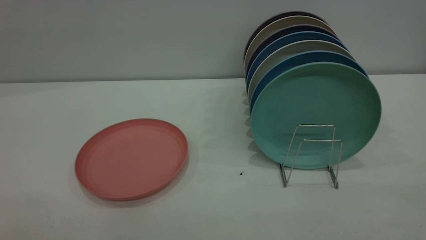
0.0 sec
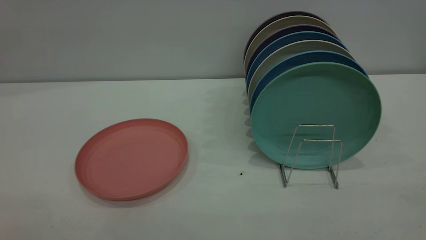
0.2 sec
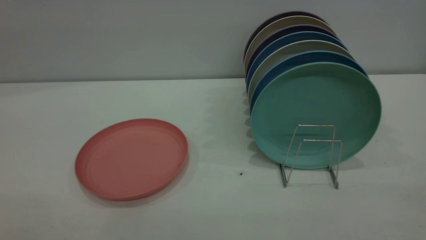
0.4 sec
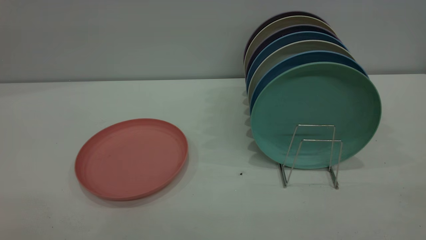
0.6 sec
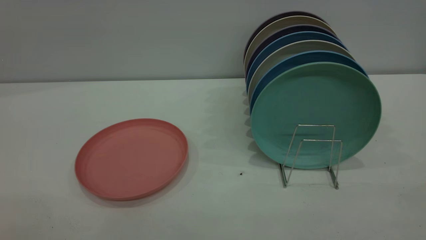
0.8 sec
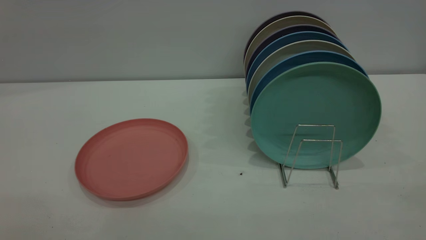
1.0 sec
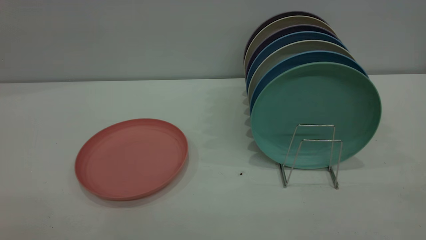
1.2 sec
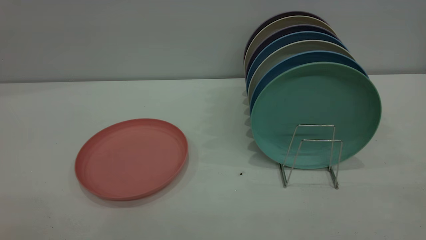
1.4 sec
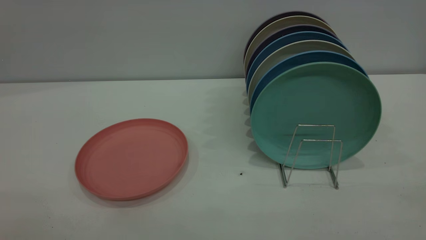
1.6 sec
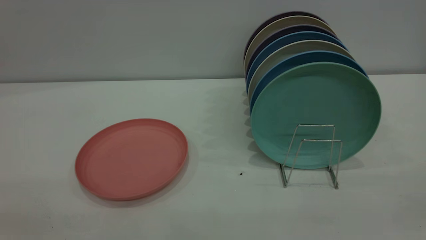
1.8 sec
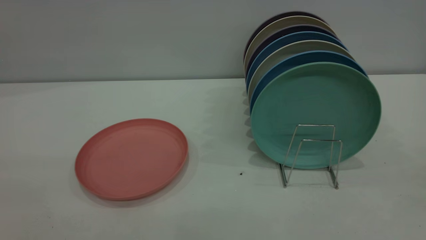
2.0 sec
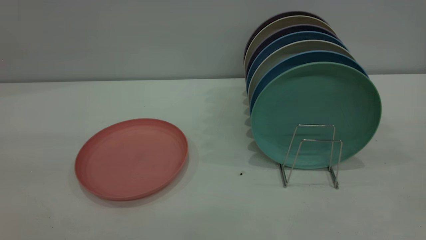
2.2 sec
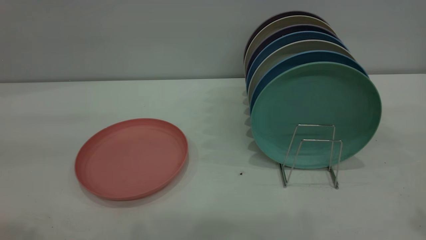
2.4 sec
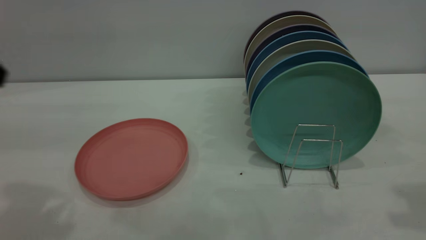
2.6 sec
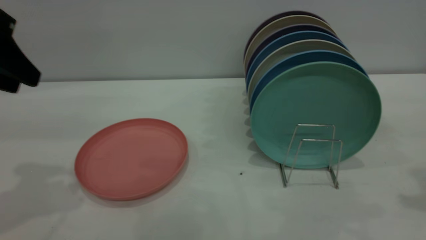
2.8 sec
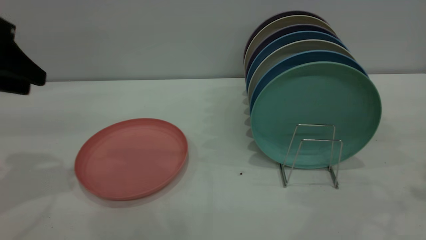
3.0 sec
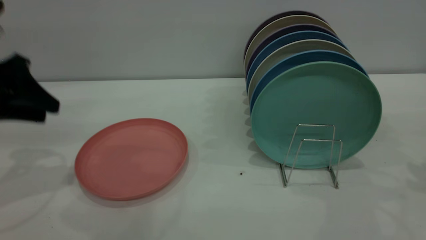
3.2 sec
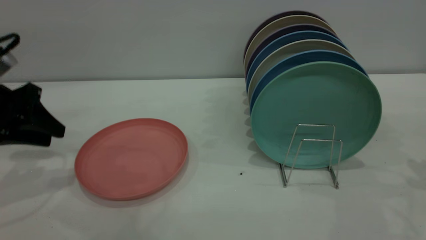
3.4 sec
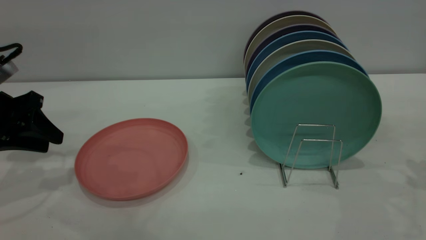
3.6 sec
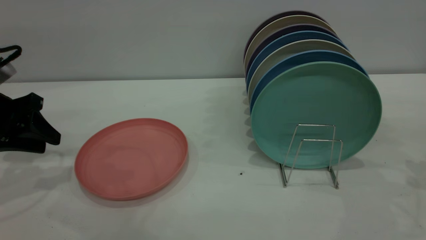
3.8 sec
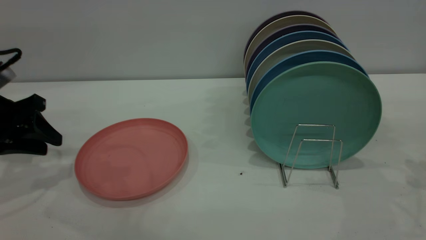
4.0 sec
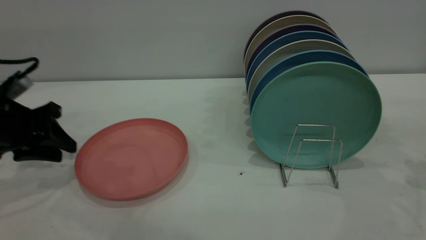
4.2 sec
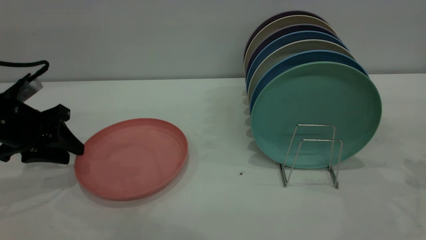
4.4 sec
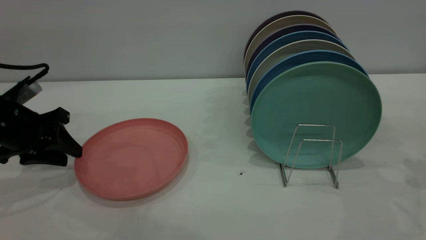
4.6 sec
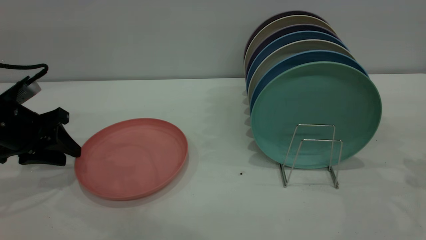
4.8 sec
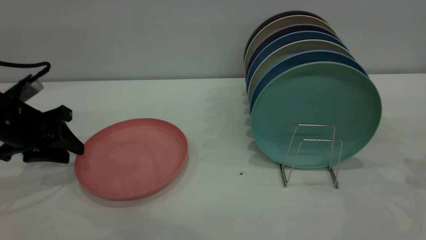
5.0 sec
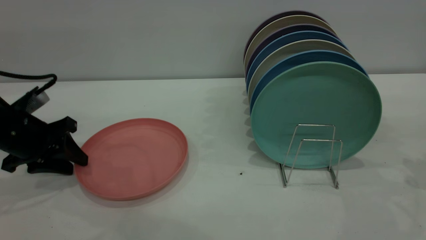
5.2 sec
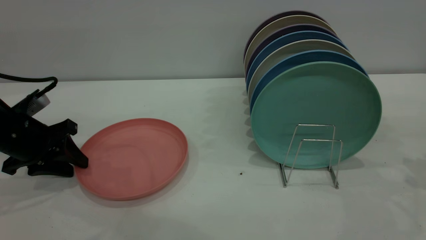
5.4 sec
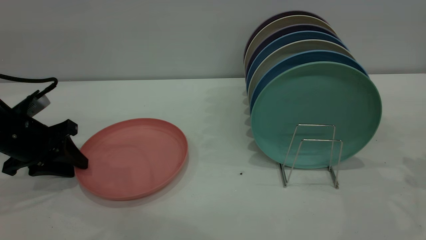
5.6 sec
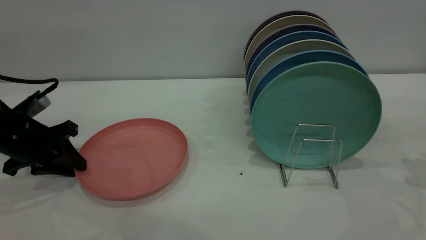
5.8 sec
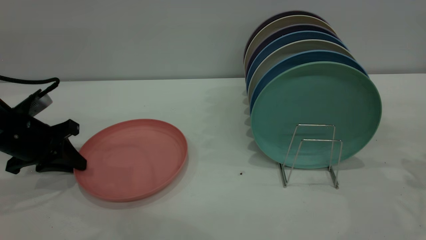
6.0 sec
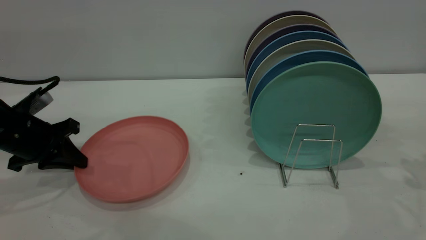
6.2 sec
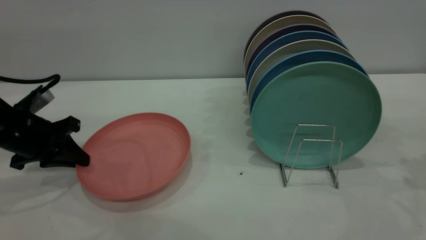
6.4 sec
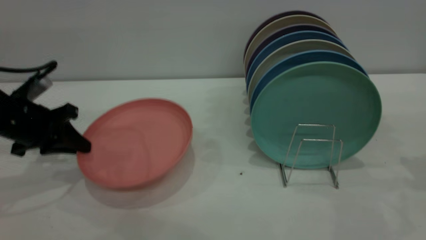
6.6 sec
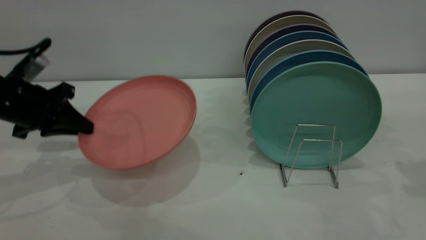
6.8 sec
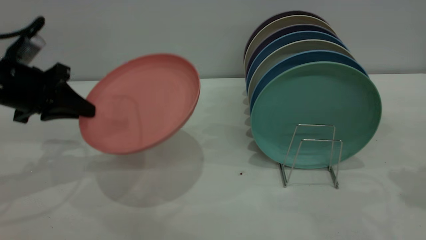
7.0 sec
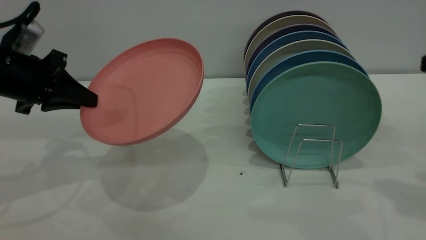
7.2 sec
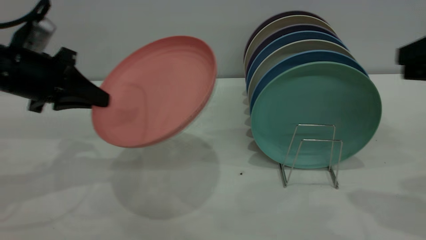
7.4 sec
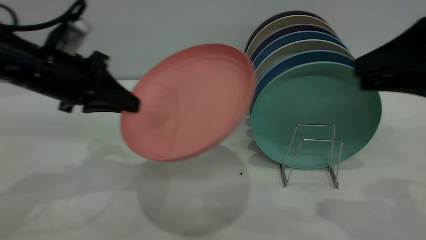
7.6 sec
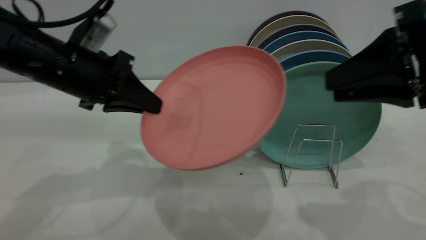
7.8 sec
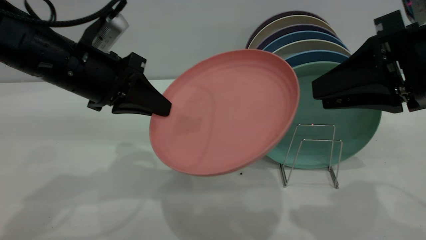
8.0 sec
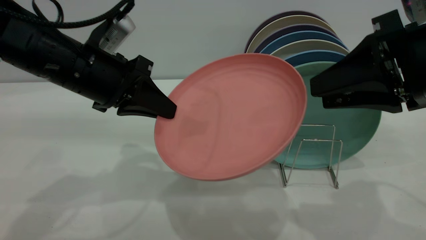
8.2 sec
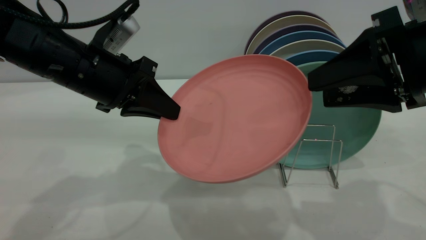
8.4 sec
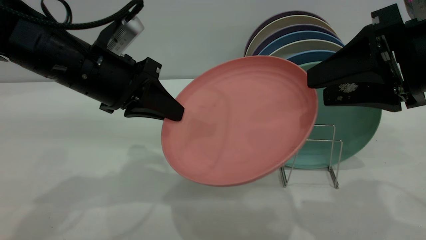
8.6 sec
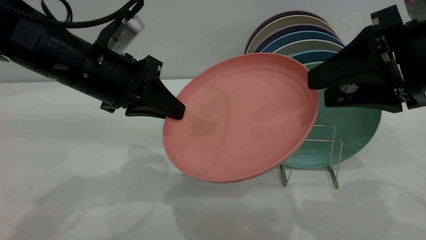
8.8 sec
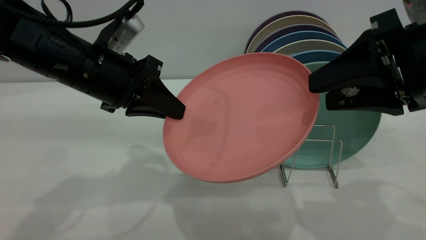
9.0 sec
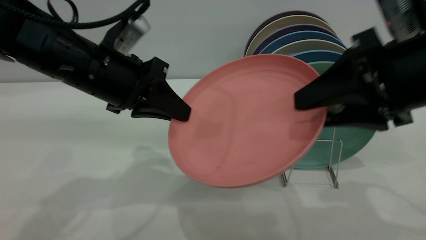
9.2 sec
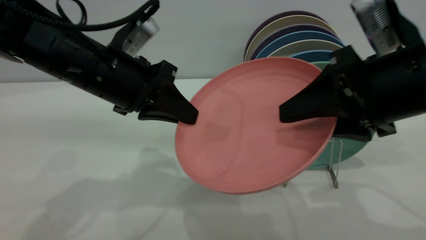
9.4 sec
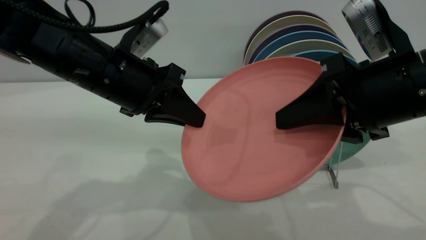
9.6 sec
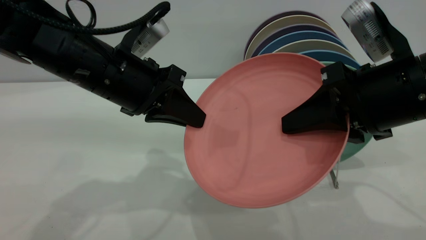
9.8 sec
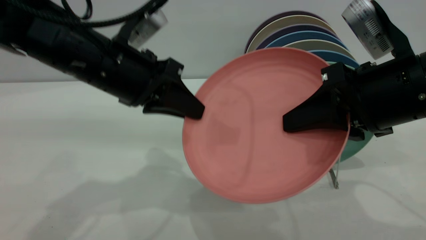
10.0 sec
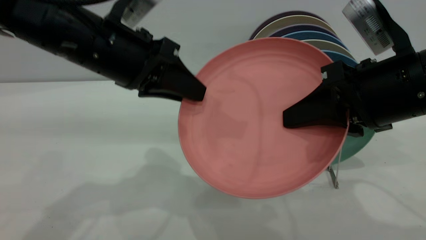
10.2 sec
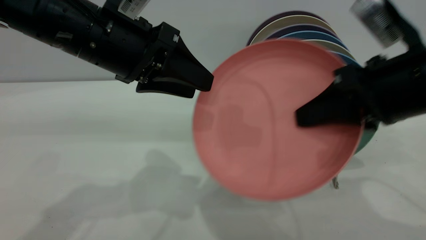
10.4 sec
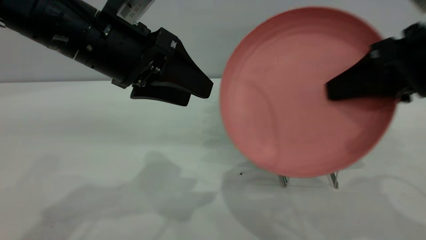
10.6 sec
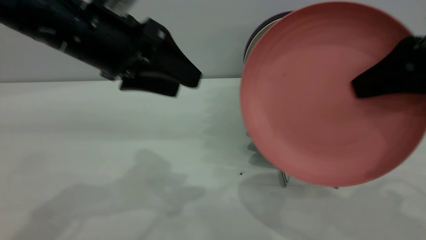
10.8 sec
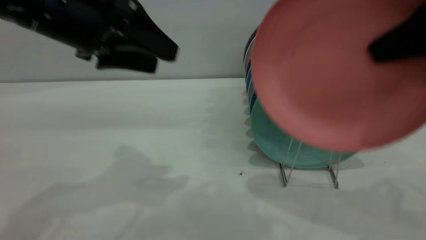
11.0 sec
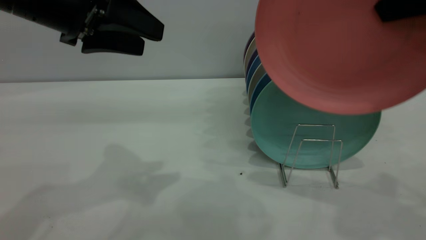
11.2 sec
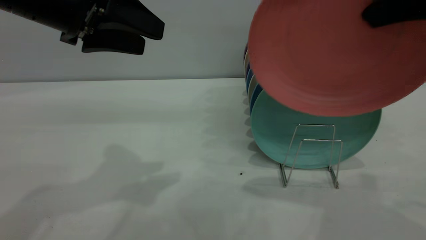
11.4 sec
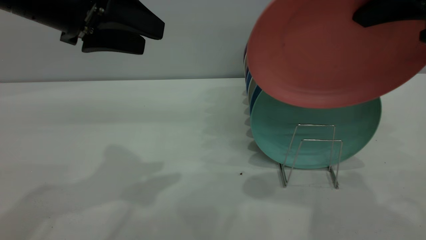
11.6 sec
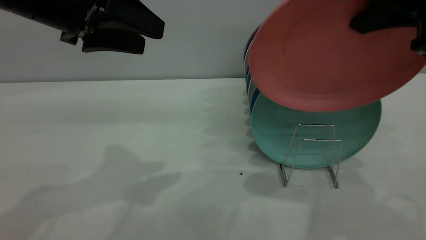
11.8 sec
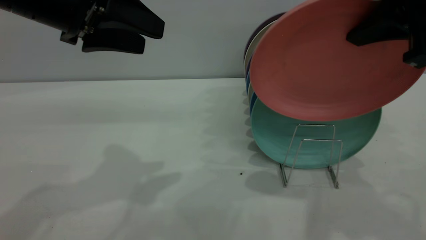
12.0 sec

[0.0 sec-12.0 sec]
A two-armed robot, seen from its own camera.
Task of the whole recording: put the plate on the plate rack.
Step, 0.0 sec to 6.4 sec: Pick up the plate with the left gripper.
Step, 6.6 sec to 10.6 sec: Pass the plate from the left gripper to the right gripper.
1.6 sec to 3.0 sec: The left gripper moves forward, approximately 35 cm.
3.0 sec to 4.4 sec: The left gripper travels downward by about 15 cm.
4.4 sec to 6.0 sec: The left gripper closes.
6.0 sec to 7.6 sec: The left gripper is displaced upward and to the right by some 15 cm. The right gripper moves to the left, upward and backward, some 15 cm.
7.6 sec to 9.0 sec: The right gripper opens up. Meanwhile the left gripper is displaced to the right by roughly 5 cm.
9.0 sec to 10.4 sec: The left gripper changes place by some 5 cm, and opens. The right gripper closes up.
10.4 sec to 12.0 sec: The right gripper shifts about 10 cm upward, while the left gripper travels to the left by about 5 cm.

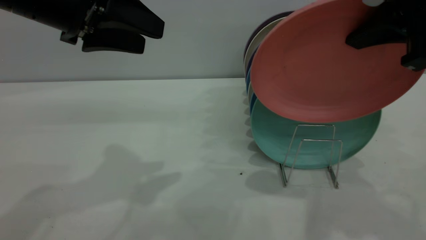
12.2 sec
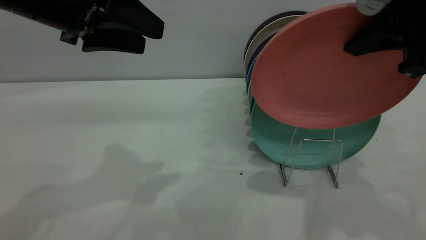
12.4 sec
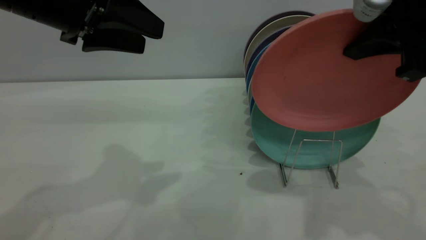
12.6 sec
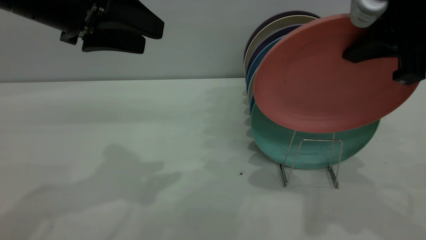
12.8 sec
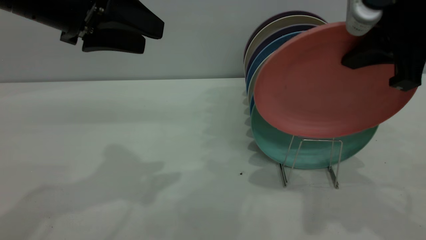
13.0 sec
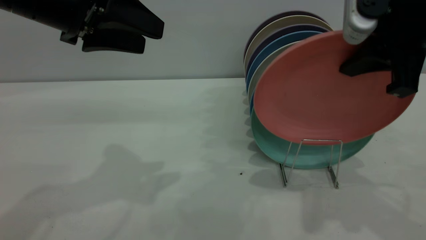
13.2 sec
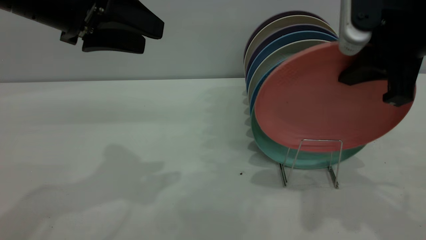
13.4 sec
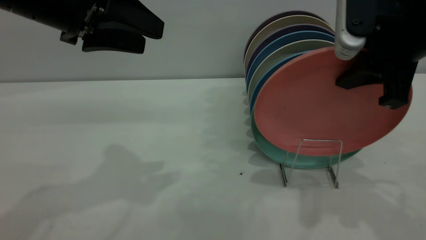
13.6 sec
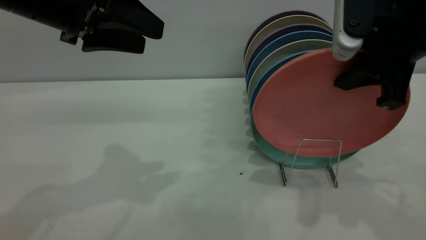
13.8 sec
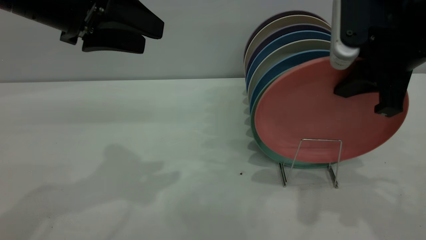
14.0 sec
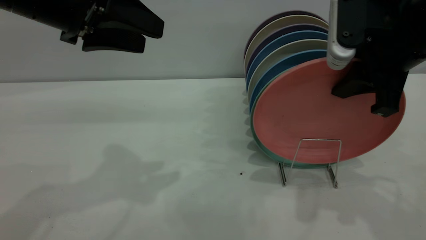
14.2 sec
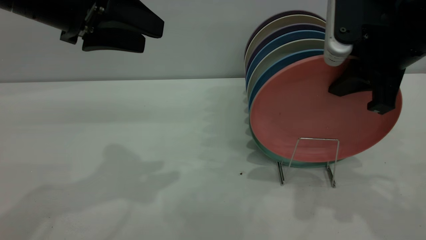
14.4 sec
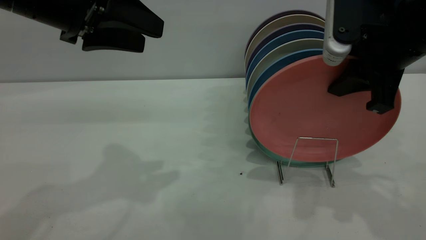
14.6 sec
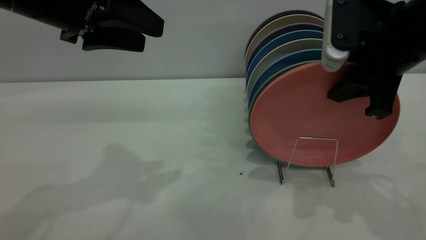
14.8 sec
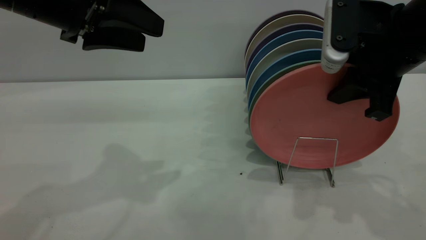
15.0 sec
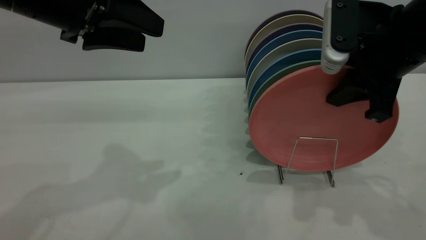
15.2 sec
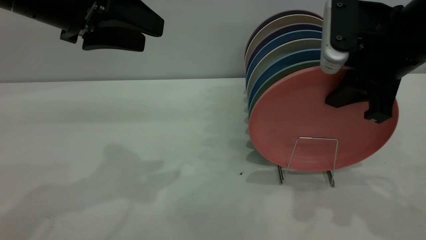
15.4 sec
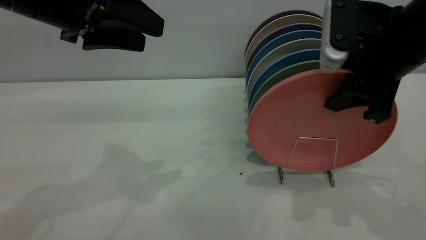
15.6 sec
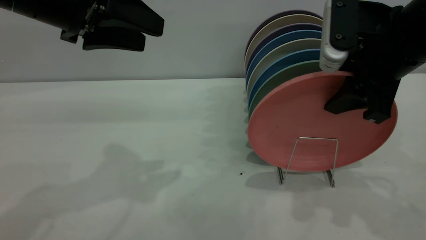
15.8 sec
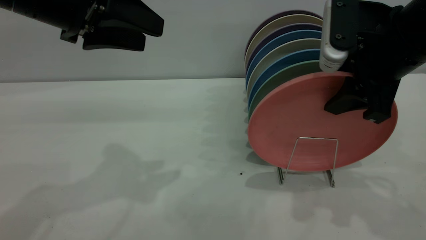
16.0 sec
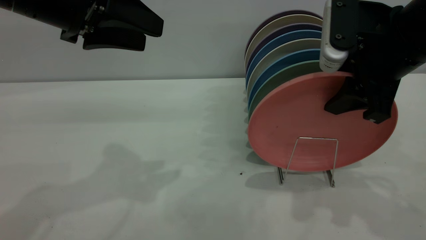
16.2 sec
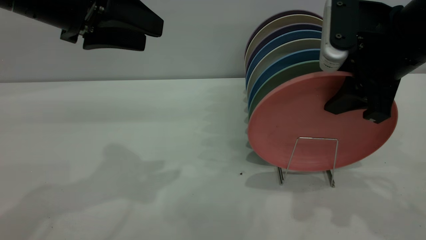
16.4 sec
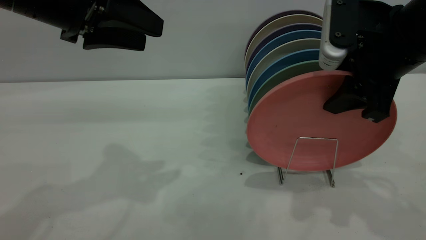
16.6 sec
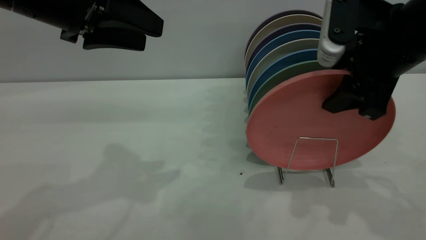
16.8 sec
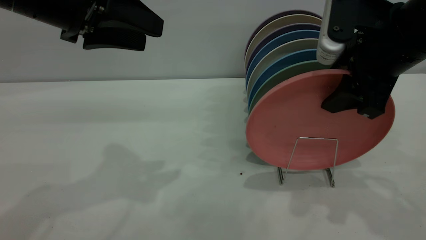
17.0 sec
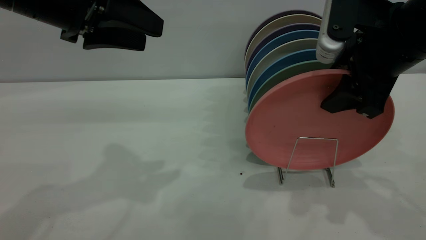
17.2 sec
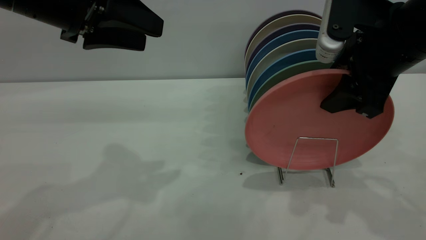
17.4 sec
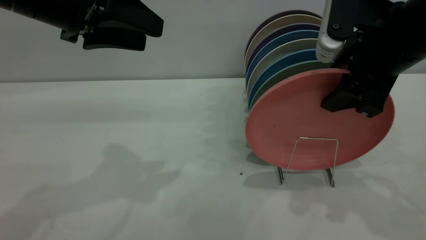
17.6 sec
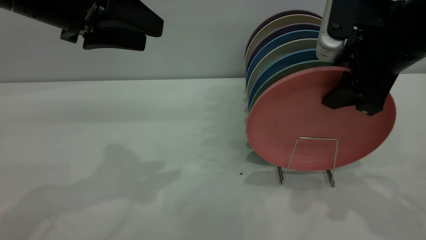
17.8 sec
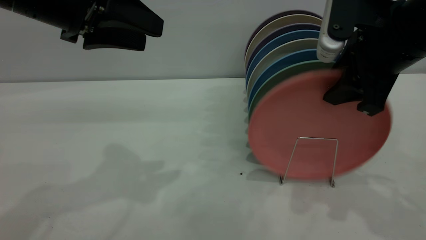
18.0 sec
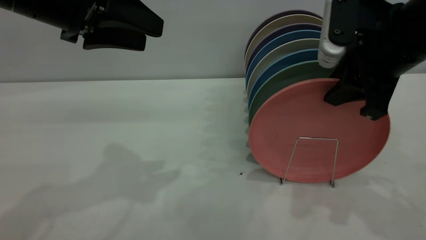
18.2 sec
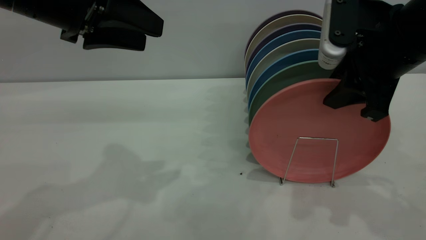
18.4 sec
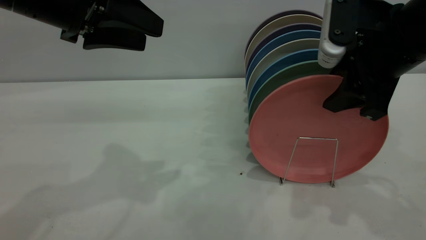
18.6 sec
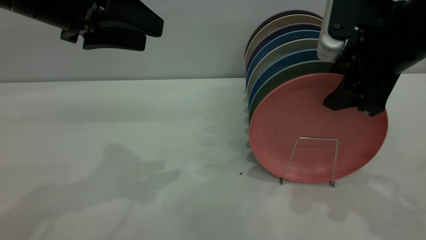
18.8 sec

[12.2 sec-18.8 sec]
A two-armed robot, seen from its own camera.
Task of the whole recording: put the plate on the plate rack.
12.2 sec to 13.8 sec: The right gripper moves downward, roughly 5 cm.
13.8 sec to 15.4 sec: There are only small adjustments of the grippers.
15.4 sec to 17.2 sec: The right gripper opens.
17.2 sec to 18.8 sec: The right gripper closes, then opens again.
